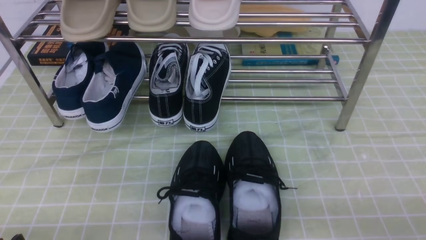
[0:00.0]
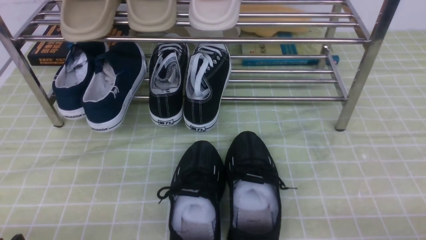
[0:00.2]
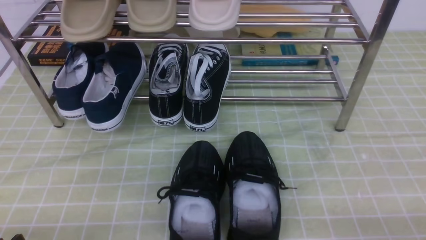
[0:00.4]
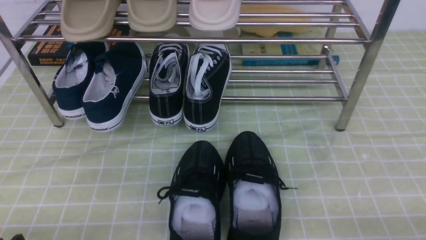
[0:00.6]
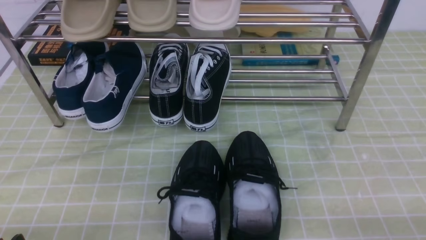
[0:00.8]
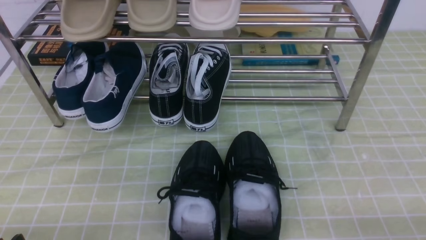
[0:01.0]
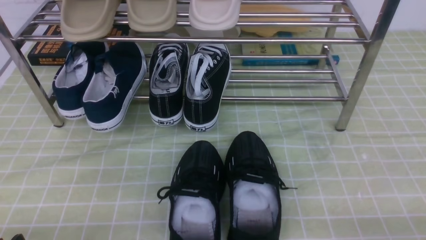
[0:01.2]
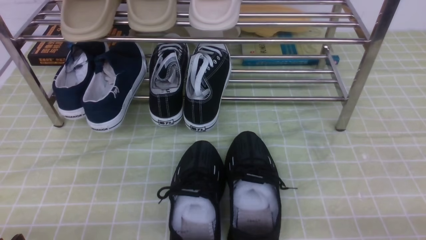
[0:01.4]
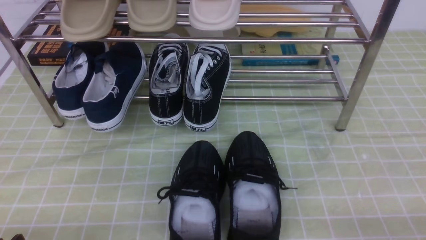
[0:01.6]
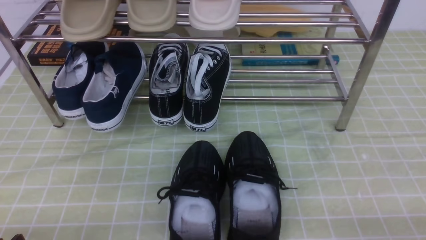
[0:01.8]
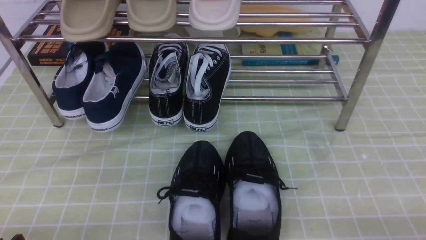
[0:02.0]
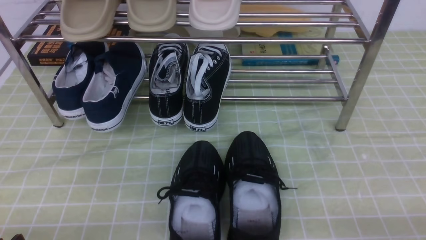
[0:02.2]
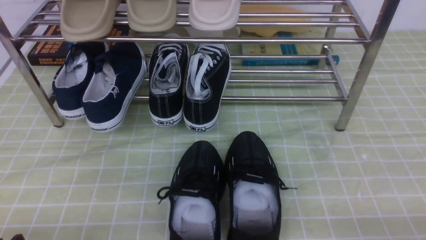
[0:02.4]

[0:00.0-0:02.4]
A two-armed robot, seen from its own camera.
0:01.2 to 0:02.4: Neither gripper changes place.
